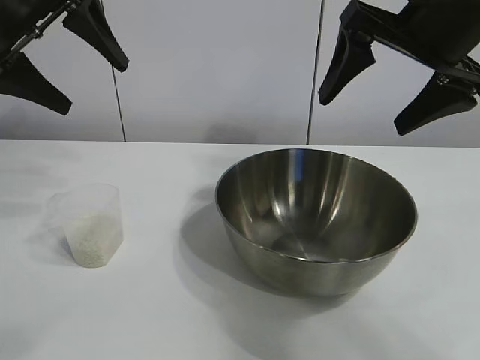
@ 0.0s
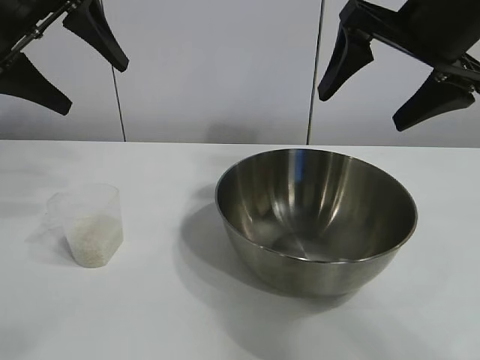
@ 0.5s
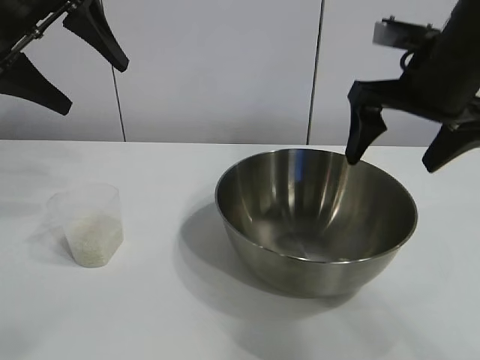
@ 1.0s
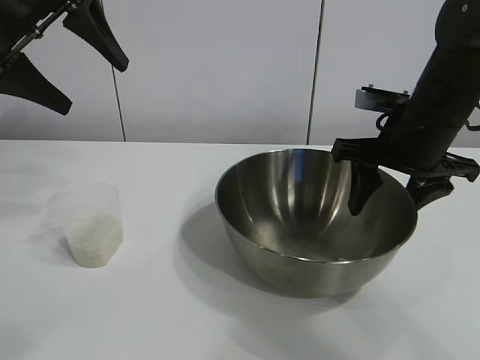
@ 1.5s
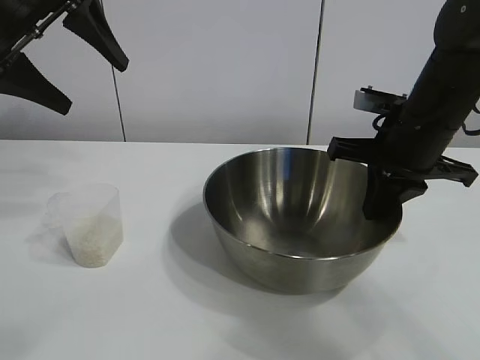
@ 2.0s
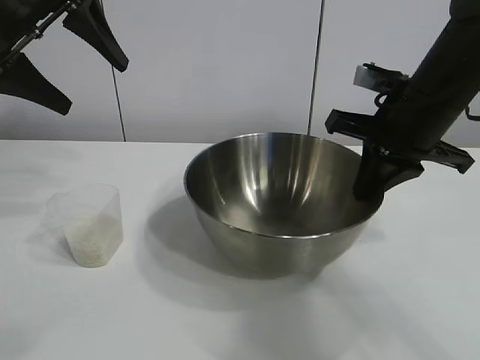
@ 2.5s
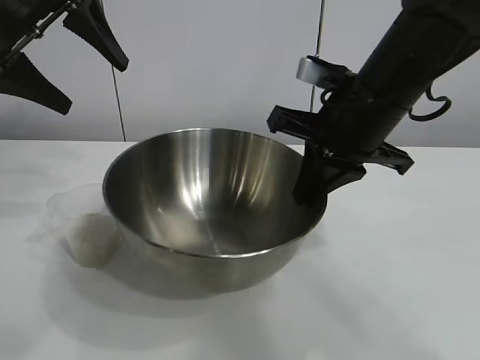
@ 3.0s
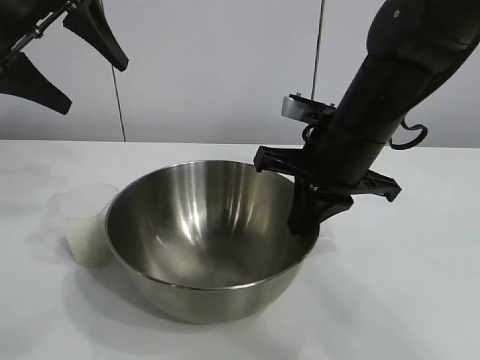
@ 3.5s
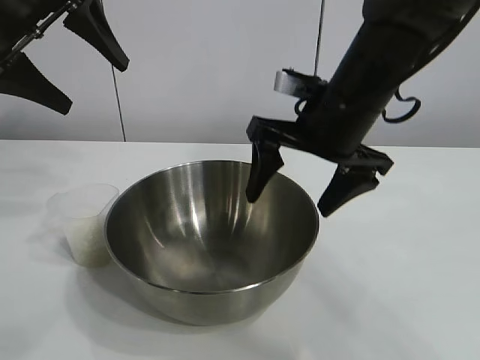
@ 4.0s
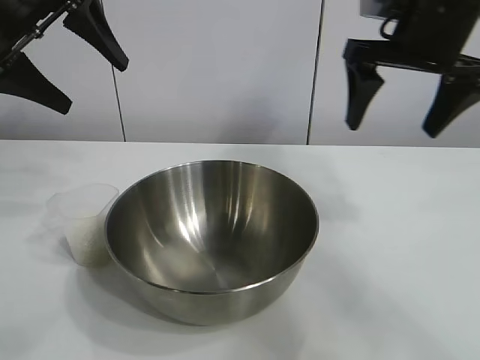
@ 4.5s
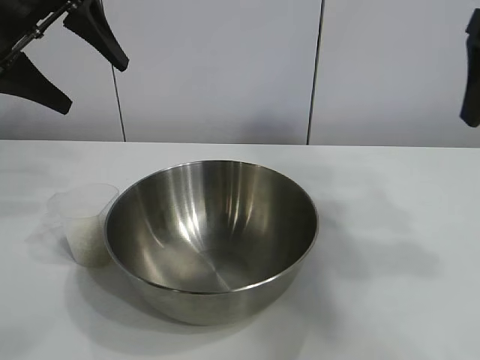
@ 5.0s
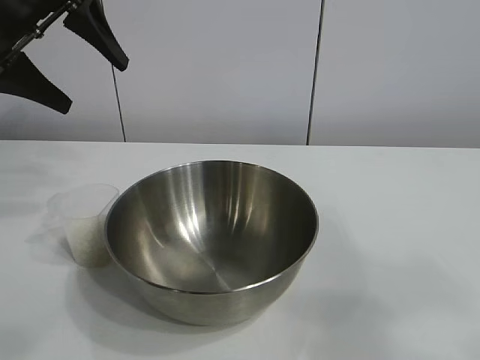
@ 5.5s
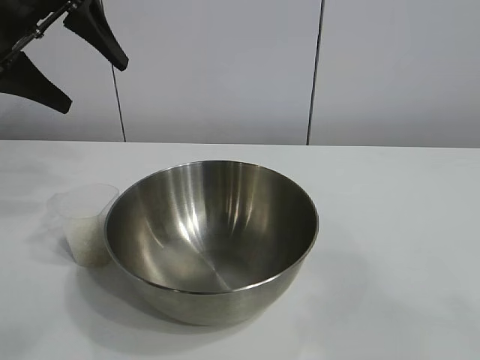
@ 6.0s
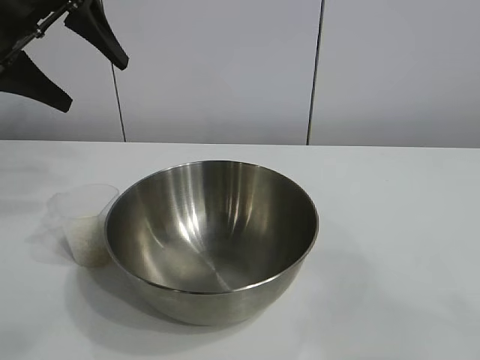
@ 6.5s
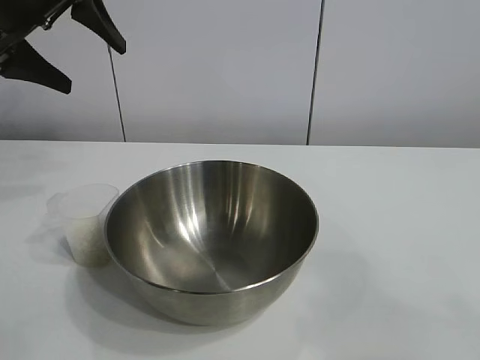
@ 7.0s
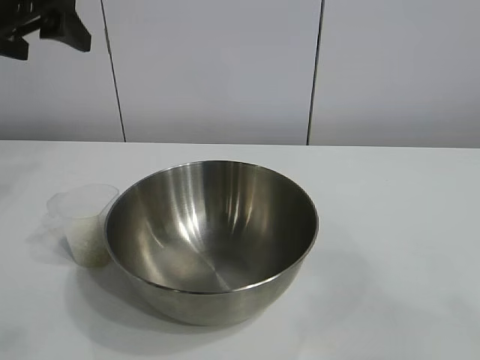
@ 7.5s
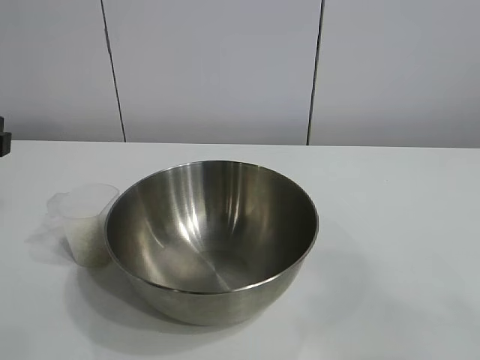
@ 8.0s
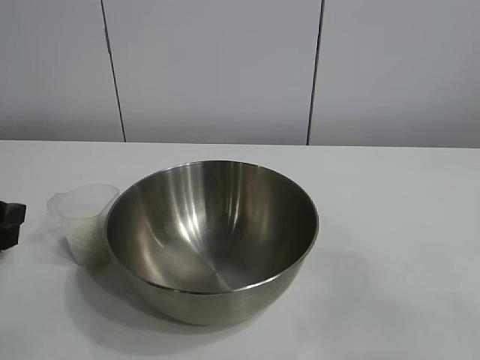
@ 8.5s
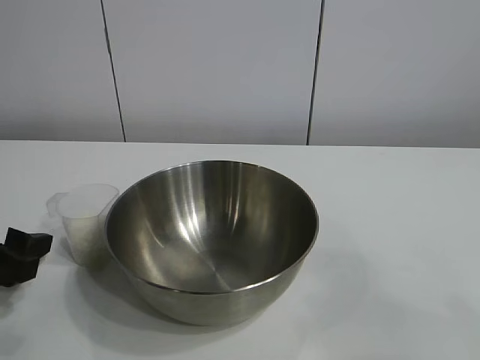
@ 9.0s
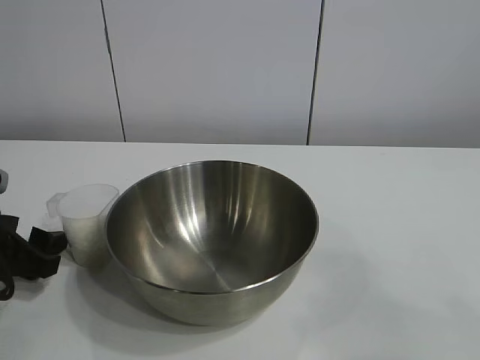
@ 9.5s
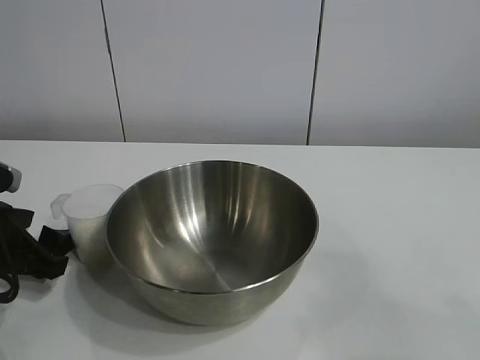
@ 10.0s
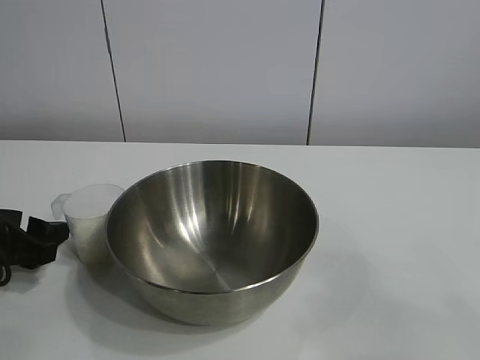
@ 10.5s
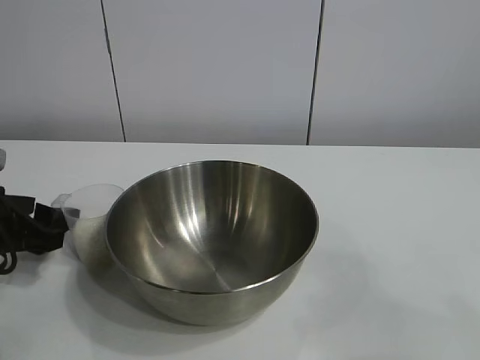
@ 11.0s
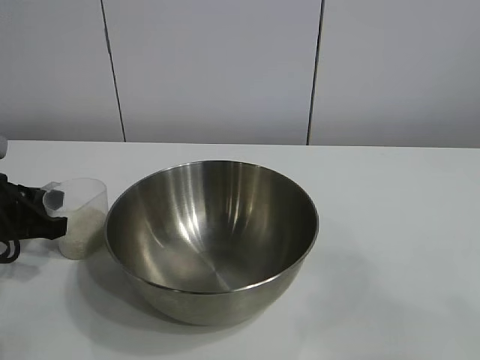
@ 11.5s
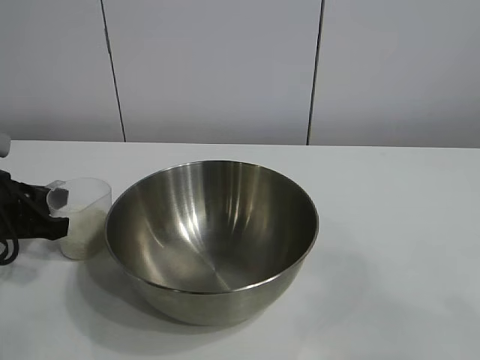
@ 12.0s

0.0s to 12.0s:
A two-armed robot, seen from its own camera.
Task of the whole recording: the right gripper grasp the rice container and place it in the center of the table, the left gripper grasp the rice scoop and pour the rice into the rice container.
Step, 1.0s to 3.5s: Move the bowl in the center of view with right gripper.
Step, 4.0s to 11.5s: Grasp the cup with rice in it with left gripper.

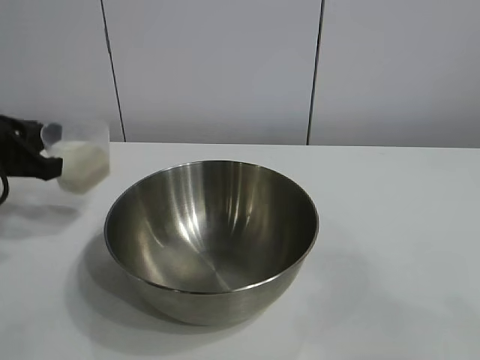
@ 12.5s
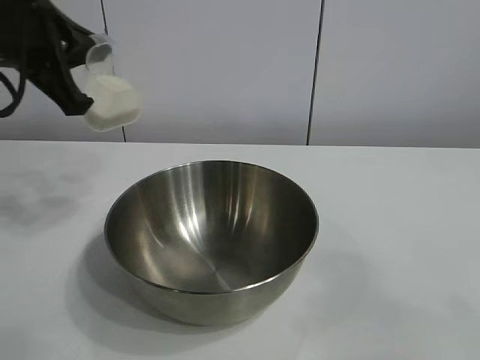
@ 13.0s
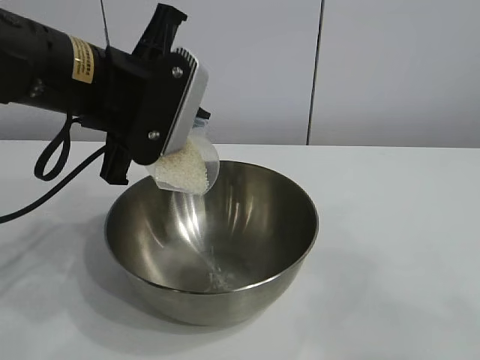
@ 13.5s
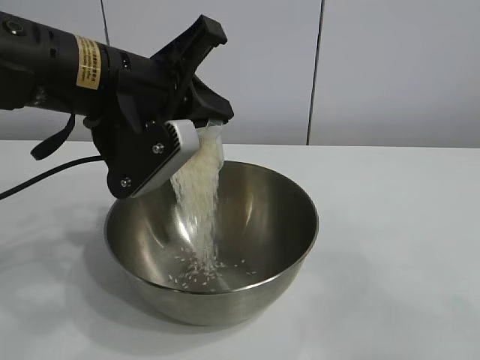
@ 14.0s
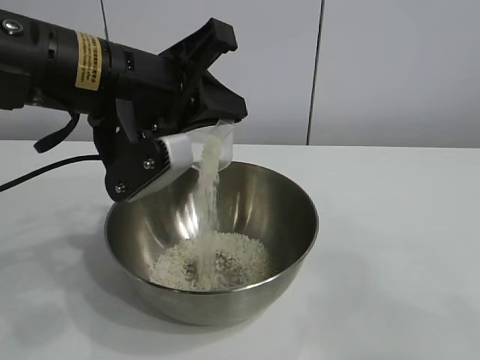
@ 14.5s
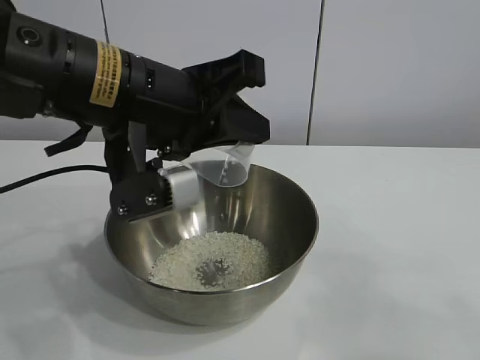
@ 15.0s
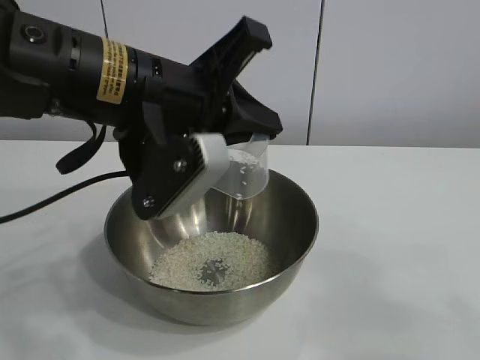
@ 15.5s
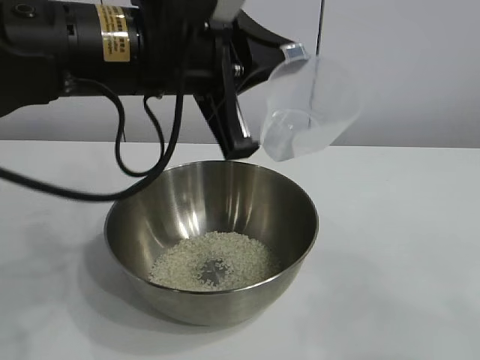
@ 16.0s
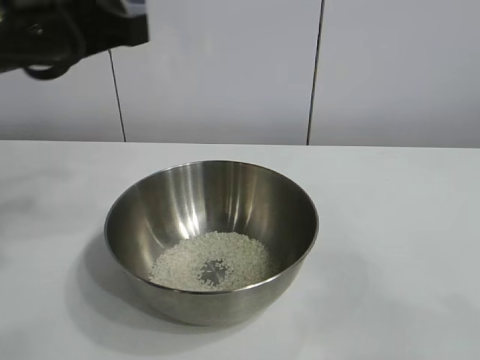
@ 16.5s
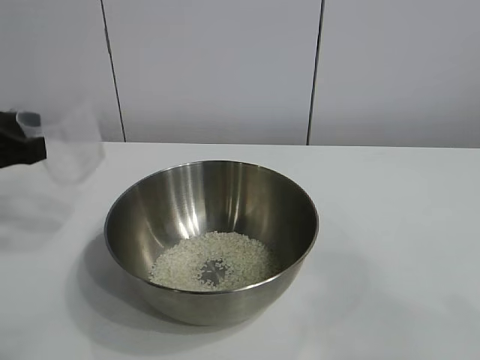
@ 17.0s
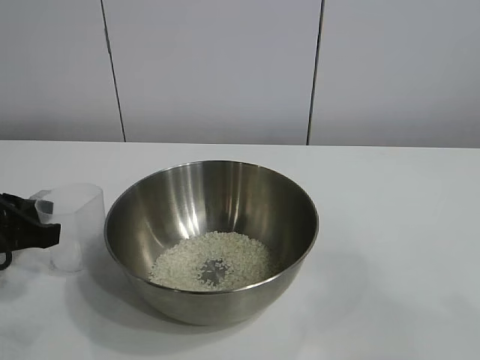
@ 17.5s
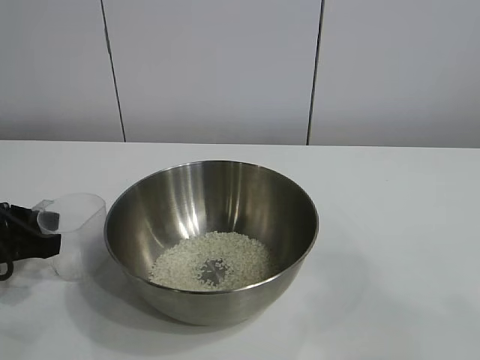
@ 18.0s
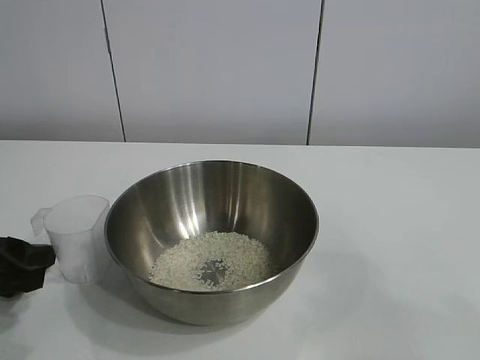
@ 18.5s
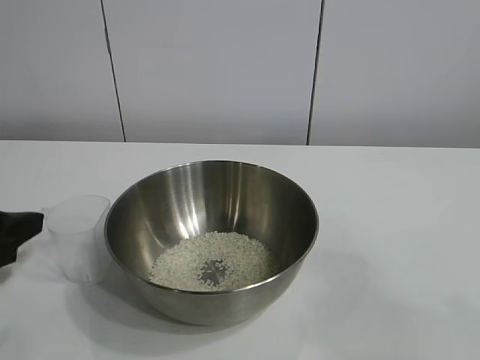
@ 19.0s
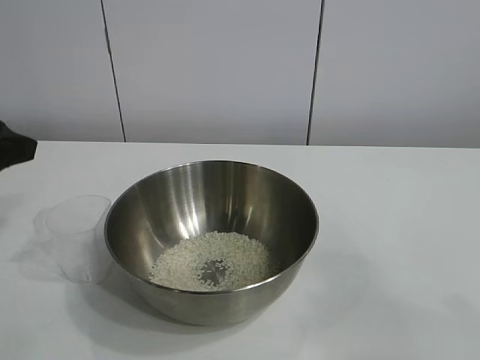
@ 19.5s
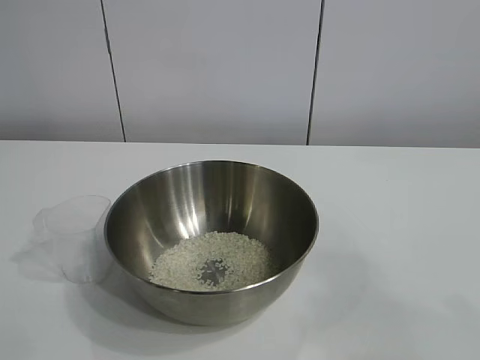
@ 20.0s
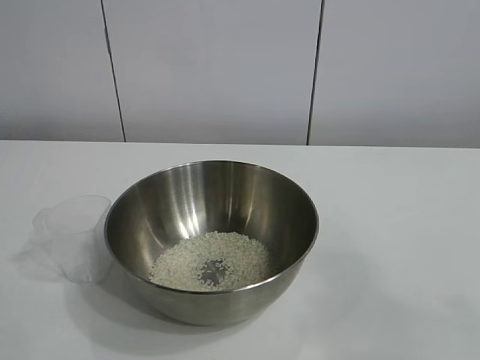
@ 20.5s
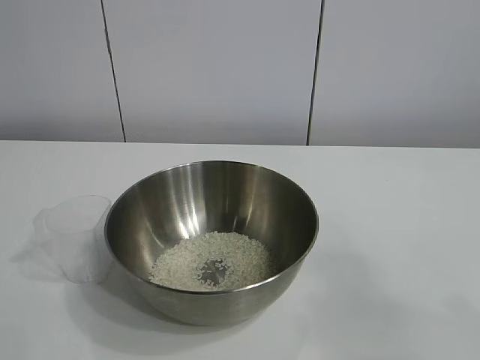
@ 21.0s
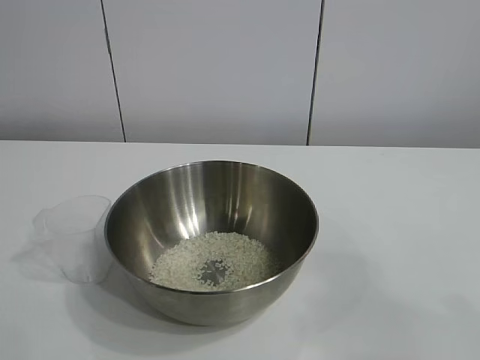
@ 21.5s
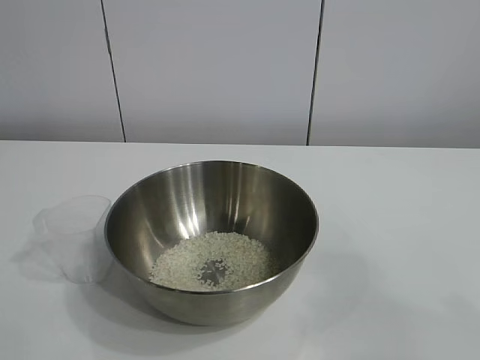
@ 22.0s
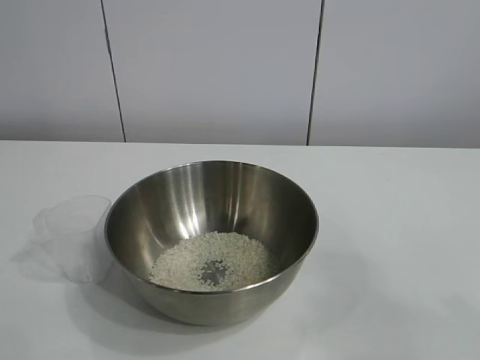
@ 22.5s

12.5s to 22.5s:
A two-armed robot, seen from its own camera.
Task of the whole recording: the right gripper grasp the rice container and place it in the center of the table, the left gripper grasp the rice scoop and pour the rice into the rice container.
Step, 12.5s to 15.0s: Pour the rice from the cup into the bowl with the left gripper.
Step, 15.5s to 18.0s: Place the cup on the table with the left gripper.

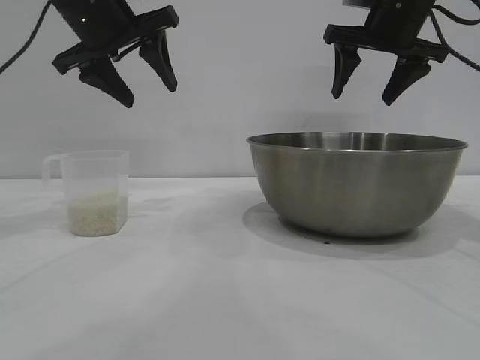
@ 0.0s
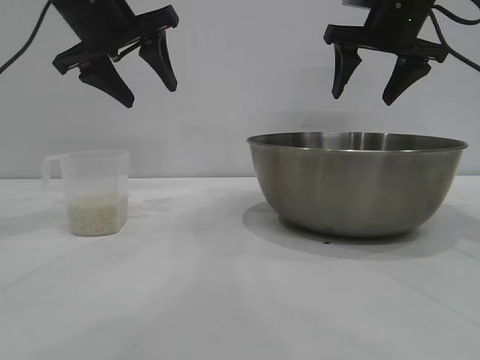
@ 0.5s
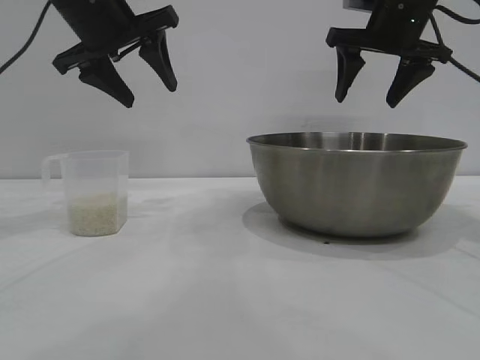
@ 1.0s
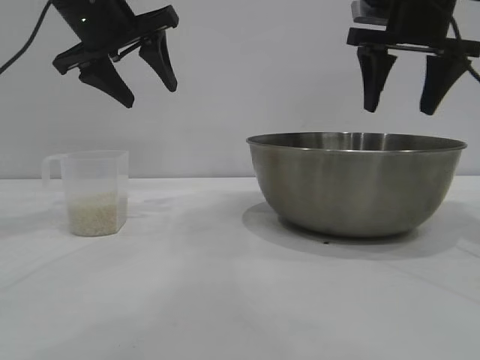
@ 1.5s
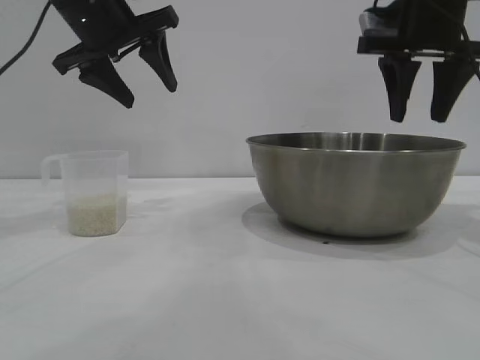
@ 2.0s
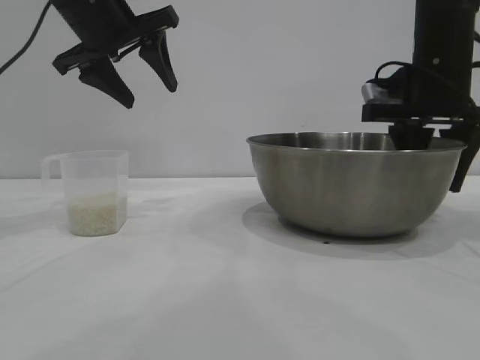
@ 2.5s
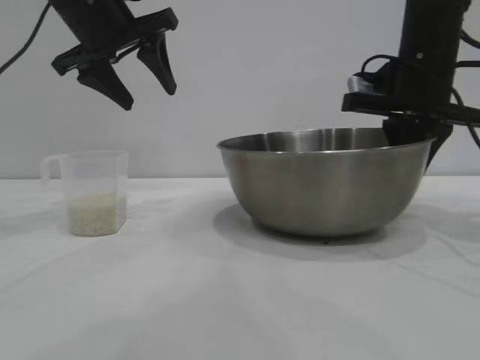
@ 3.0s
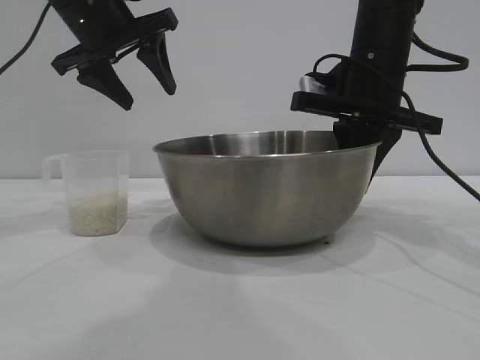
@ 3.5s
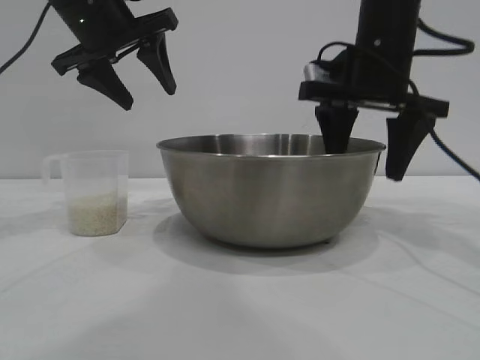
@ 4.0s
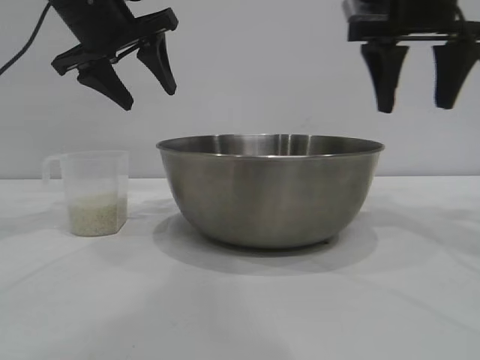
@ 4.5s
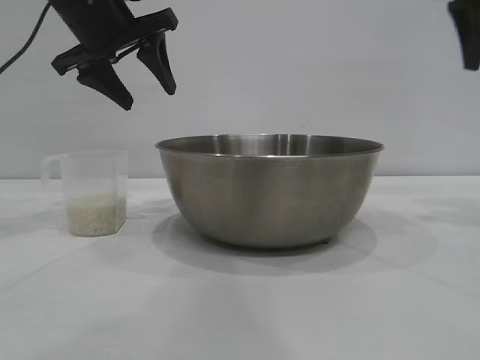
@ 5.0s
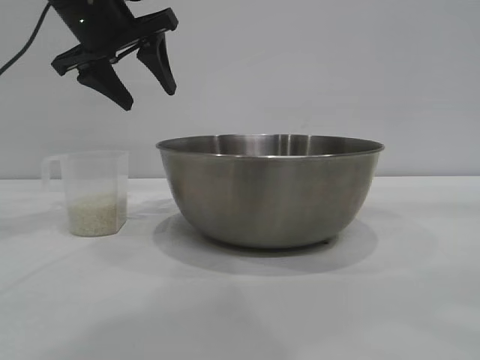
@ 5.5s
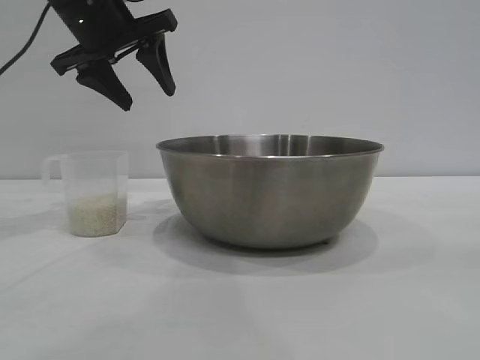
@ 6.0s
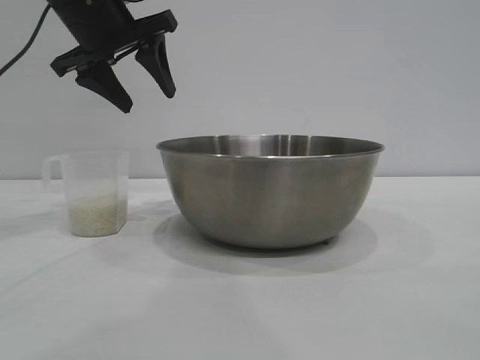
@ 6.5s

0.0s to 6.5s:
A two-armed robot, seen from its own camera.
Task of the whole recording: the right gripper grasp the rice container and place it in the center of the table, the left gripper grasp the rice scoop and pour the rice into the rice container.
Step, 0.0s to 4.5s: Move the bowl to the center of view with the right gripper.
